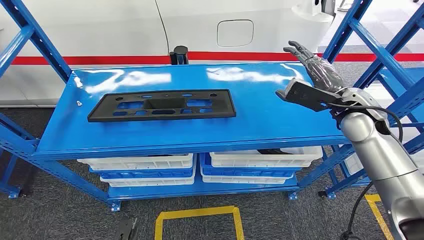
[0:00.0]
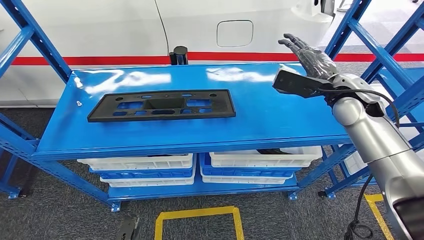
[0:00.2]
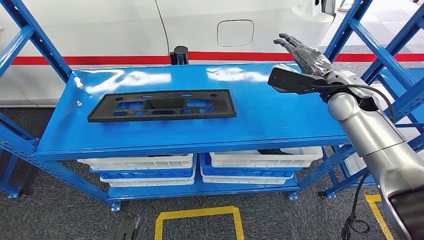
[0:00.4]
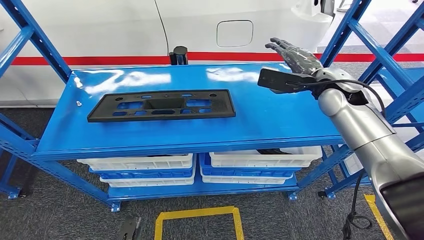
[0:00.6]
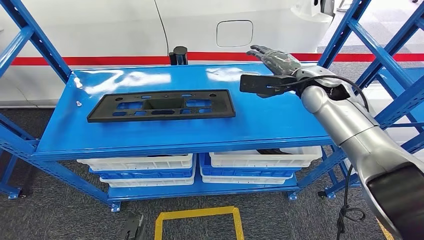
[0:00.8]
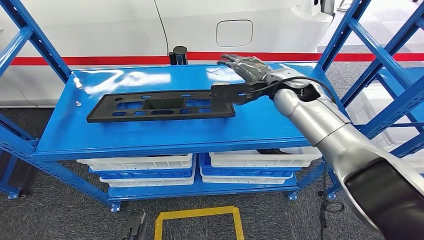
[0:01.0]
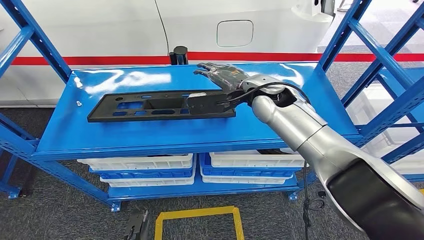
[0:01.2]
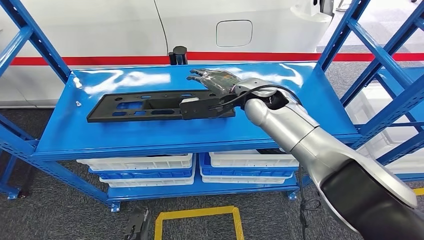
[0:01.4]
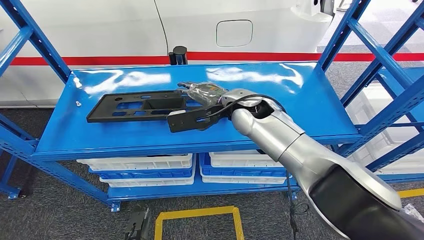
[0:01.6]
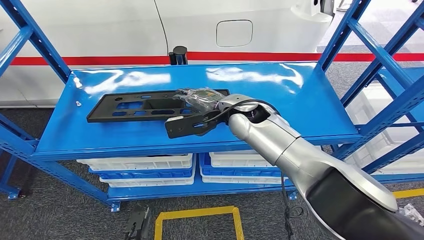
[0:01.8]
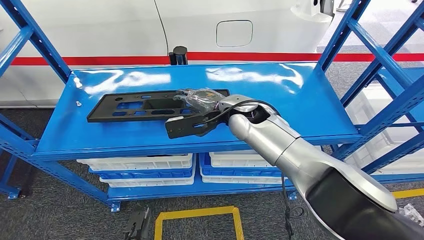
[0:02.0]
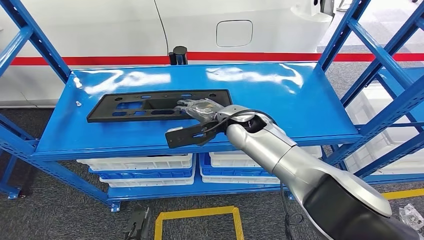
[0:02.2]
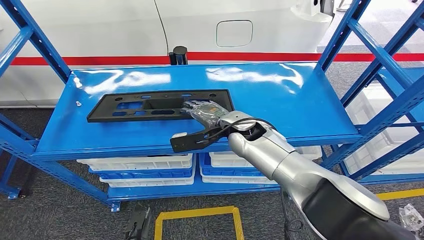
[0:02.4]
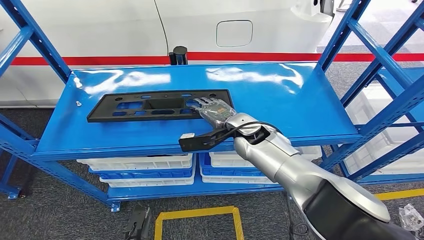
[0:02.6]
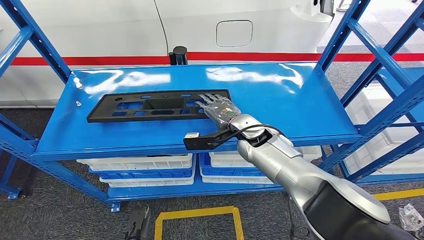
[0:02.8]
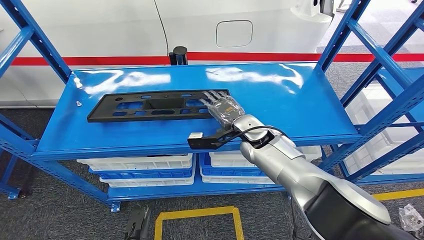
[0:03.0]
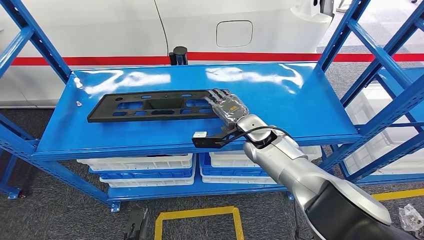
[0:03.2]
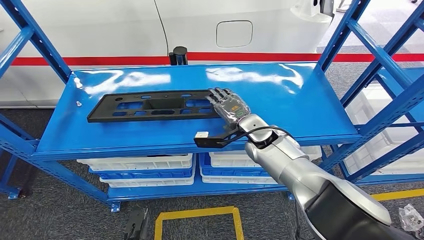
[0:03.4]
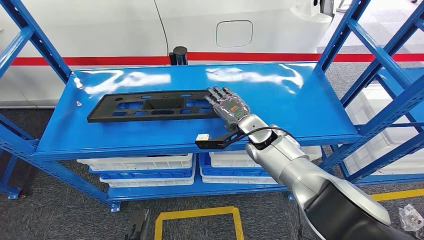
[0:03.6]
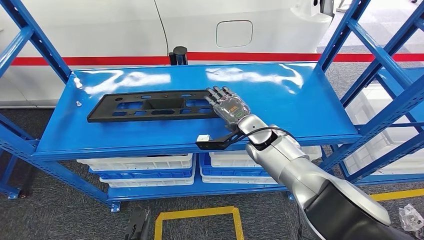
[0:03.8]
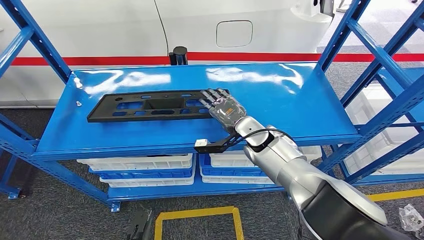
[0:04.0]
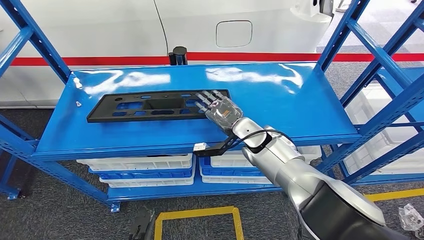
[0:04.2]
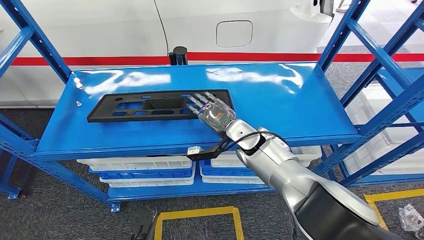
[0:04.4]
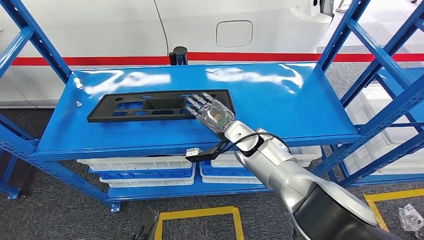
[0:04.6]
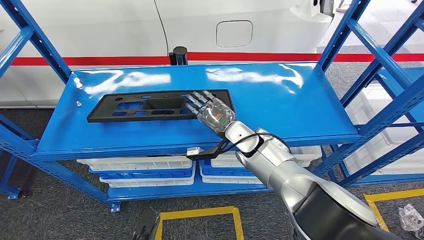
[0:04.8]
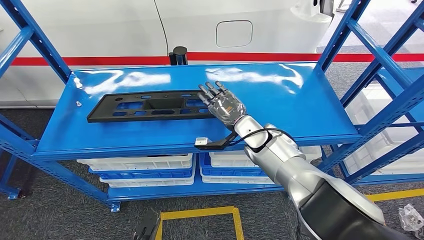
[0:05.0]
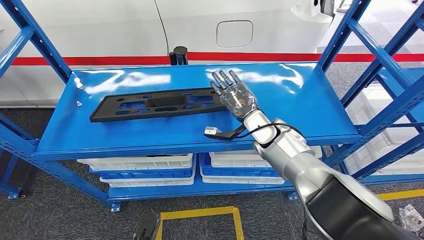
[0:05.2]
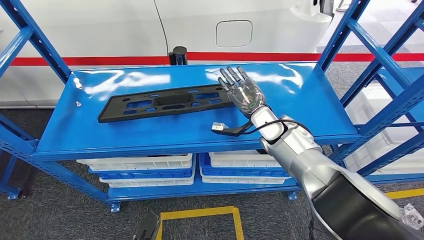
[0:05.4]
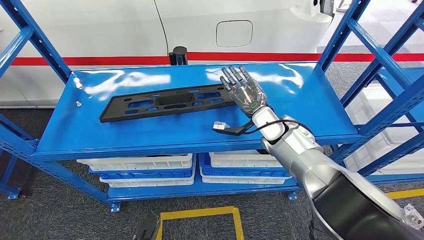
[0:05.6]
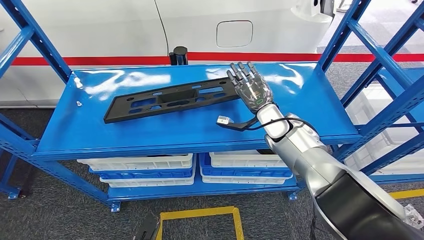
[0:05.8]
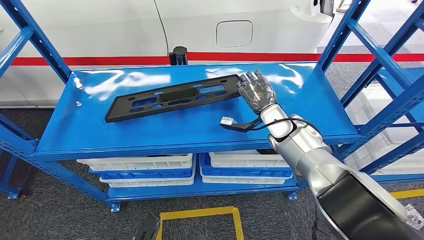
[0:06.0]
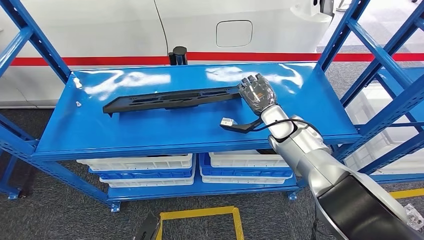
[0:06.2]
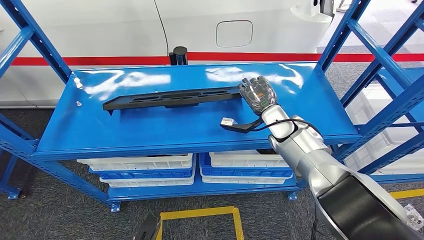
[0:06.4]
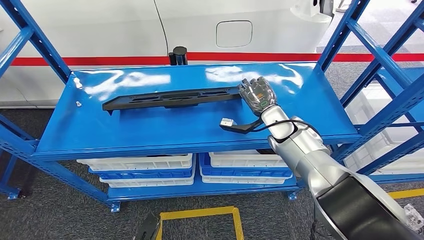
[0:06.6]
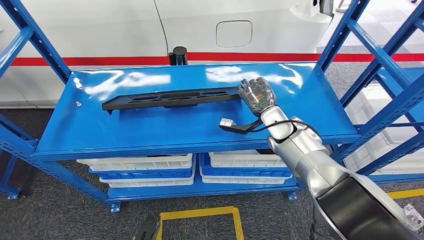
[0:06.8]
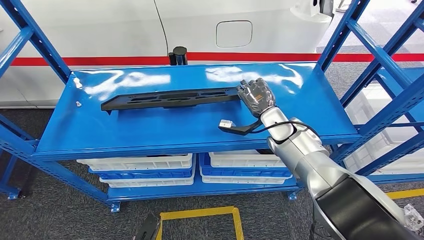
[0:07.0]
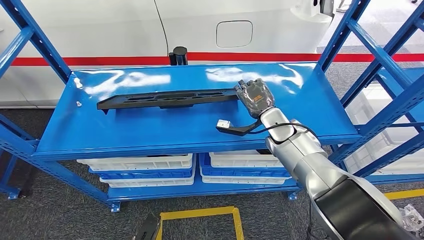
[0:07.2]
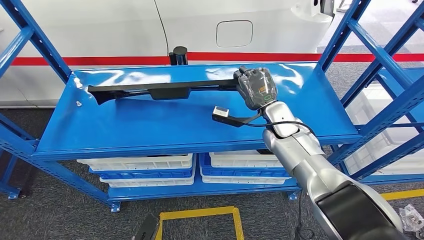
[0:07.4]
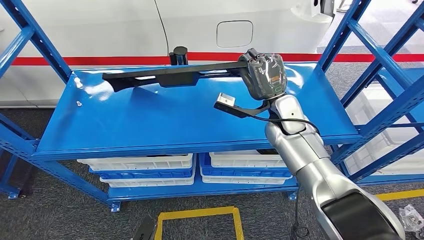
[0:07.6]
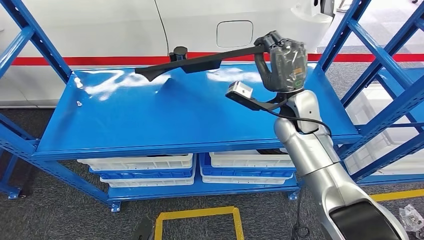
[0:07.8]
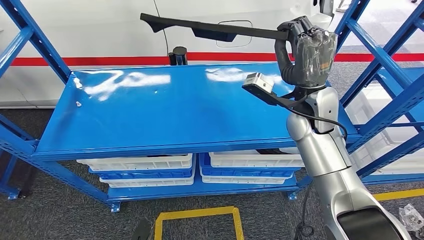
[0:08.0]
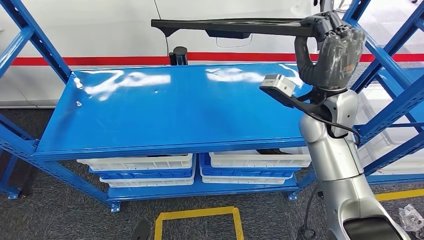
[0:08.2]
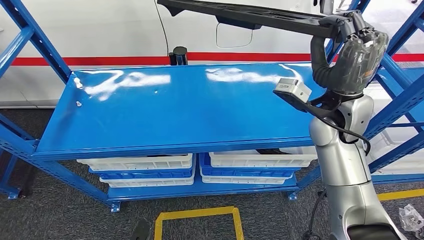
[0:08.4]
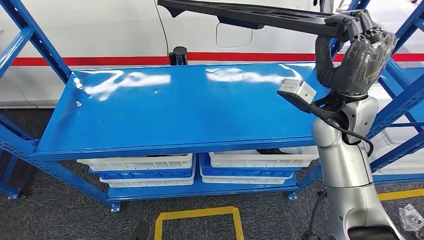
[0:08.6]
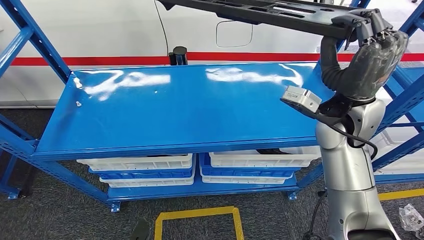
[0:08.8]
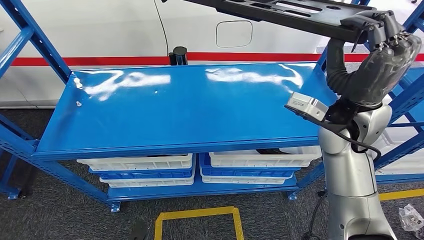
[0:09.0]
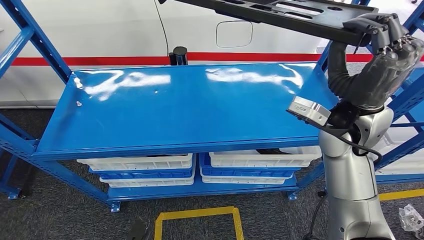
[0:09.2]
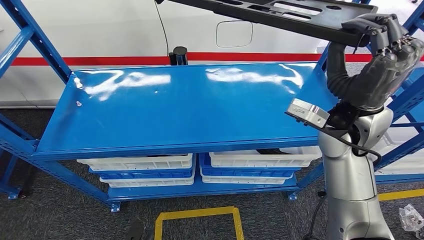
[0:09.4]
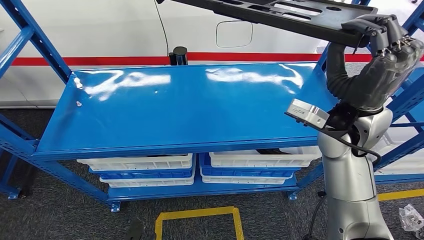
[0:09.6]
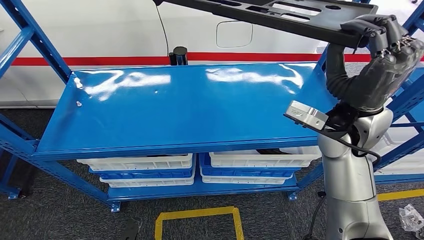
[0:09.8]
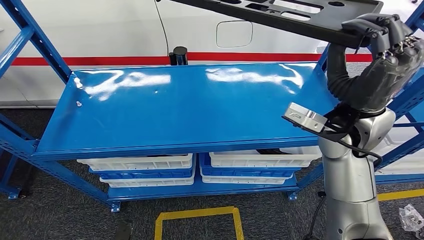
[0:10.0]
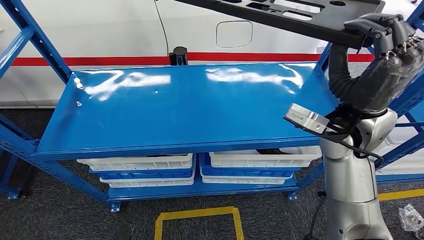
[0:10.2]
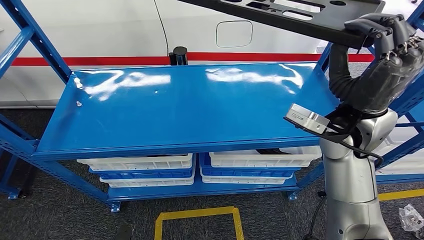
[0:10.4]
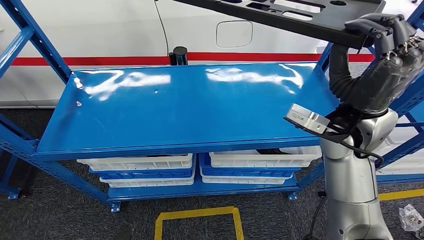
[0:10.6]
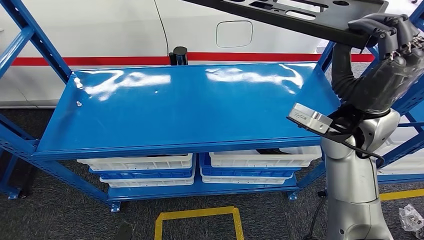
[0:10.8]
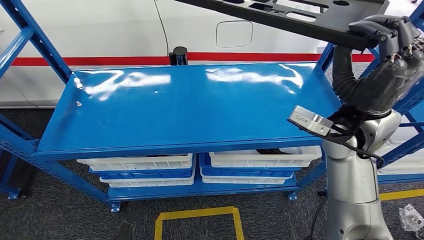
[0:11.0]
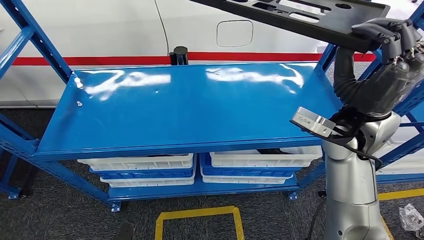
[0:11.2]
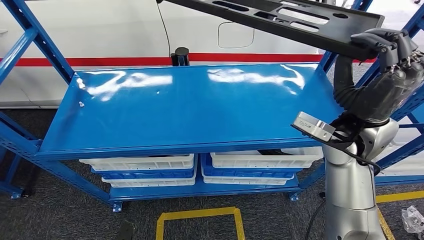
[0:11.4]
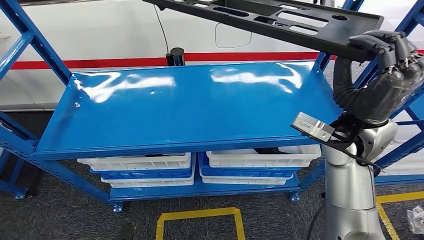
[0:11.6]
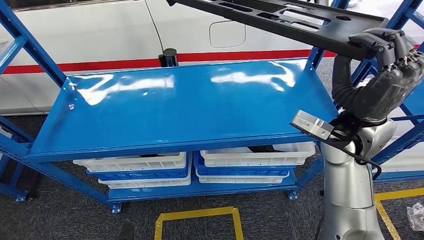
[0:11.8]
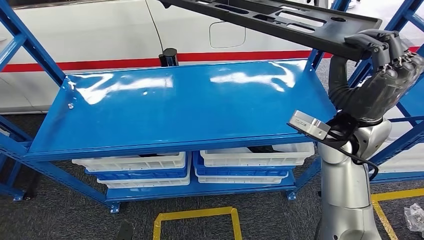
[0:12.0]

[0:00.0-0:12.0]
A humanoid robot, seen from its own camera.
0:01.6 to 0:03.0: The right hand shifts about 10 cm downward.
0:04.4 to 0:06.0: The right hand goes roughly 10 cm to the right.
0:06.0 to 0:07.6: The right hand shifts by some 5 cm.
0:09.0 to 0:10.4: There are only small adjustments of the hands.

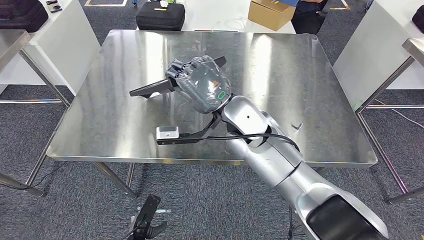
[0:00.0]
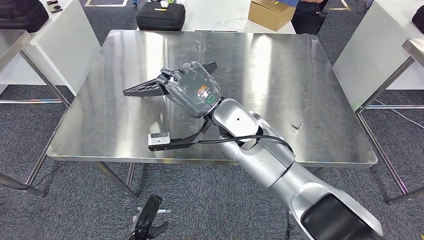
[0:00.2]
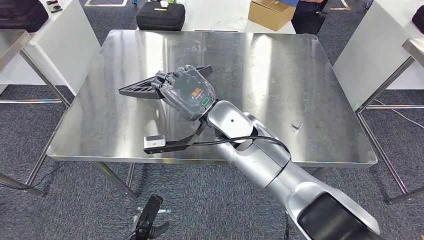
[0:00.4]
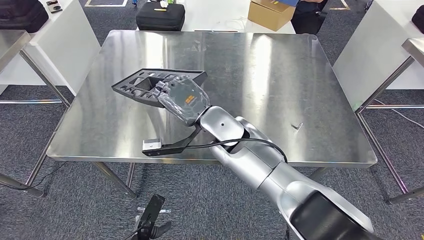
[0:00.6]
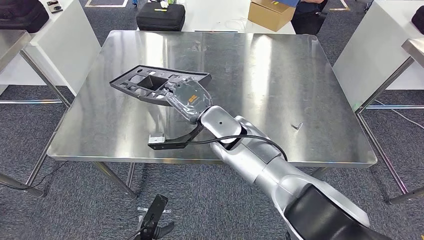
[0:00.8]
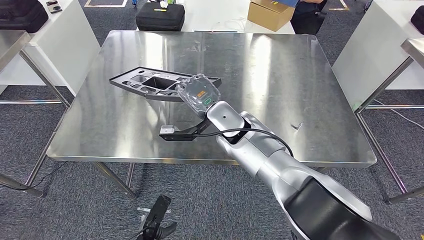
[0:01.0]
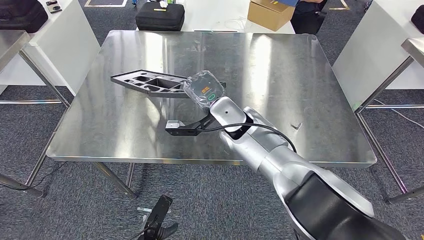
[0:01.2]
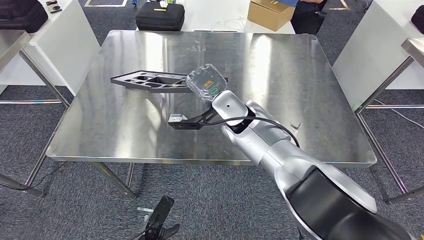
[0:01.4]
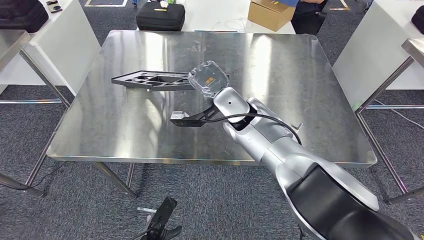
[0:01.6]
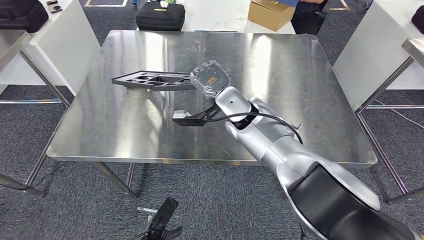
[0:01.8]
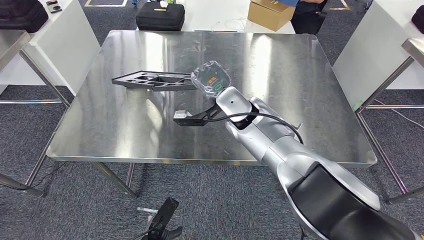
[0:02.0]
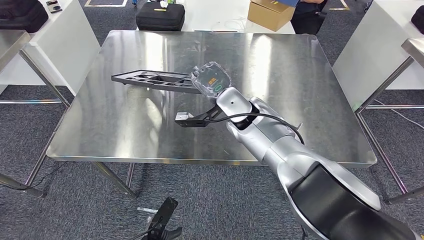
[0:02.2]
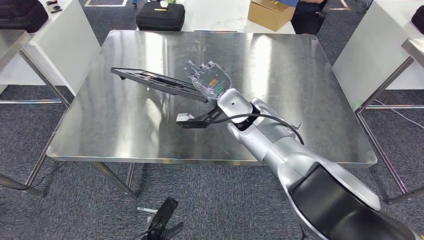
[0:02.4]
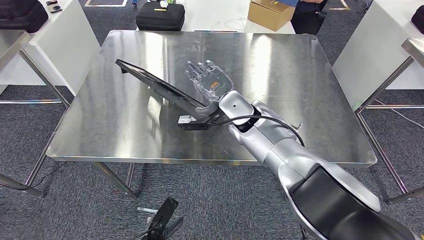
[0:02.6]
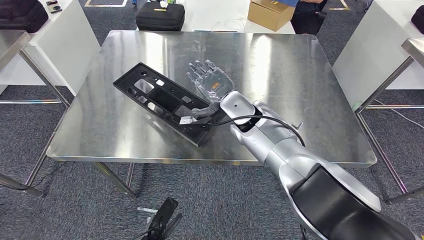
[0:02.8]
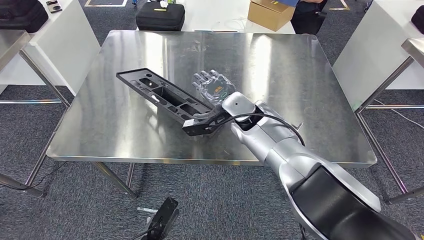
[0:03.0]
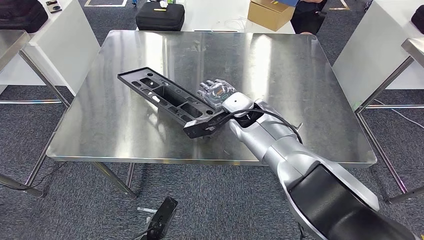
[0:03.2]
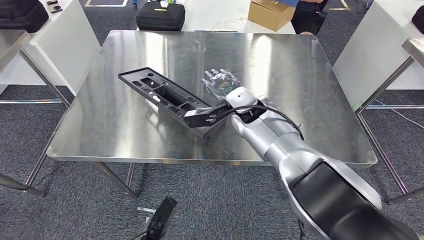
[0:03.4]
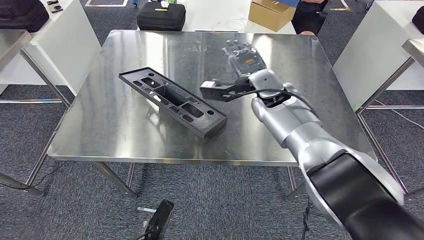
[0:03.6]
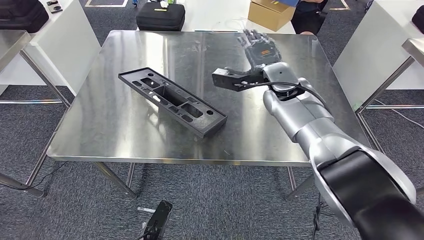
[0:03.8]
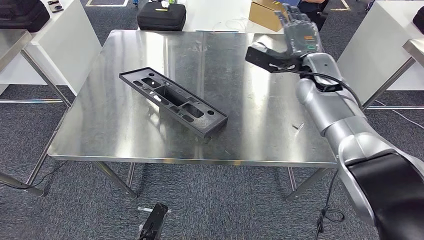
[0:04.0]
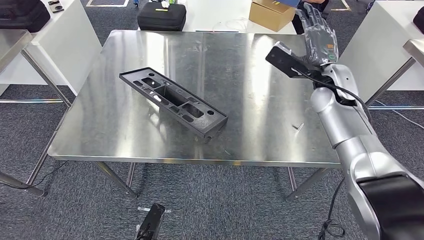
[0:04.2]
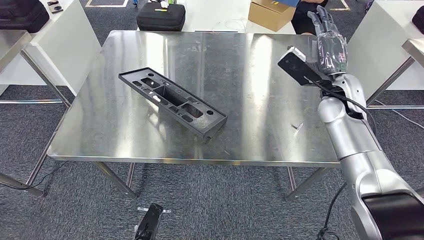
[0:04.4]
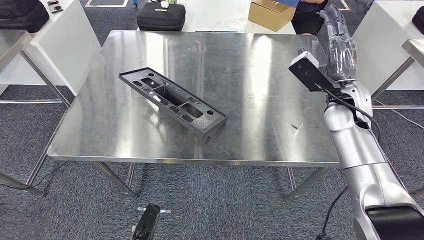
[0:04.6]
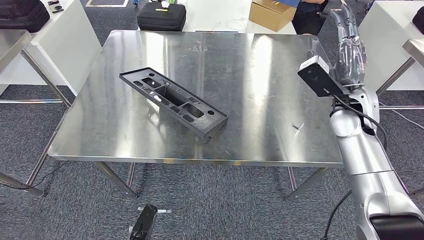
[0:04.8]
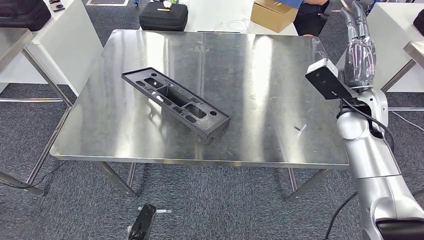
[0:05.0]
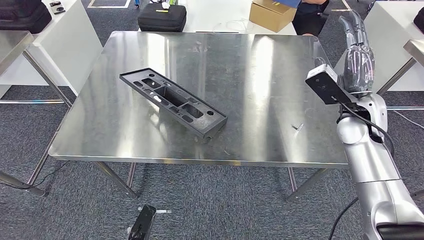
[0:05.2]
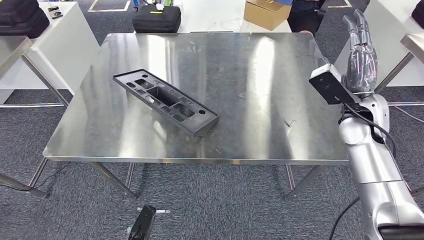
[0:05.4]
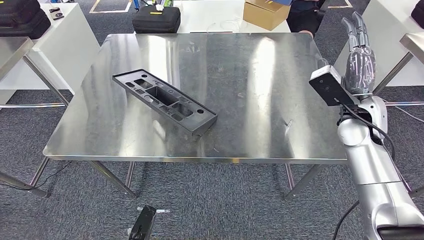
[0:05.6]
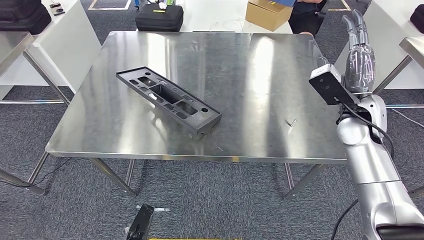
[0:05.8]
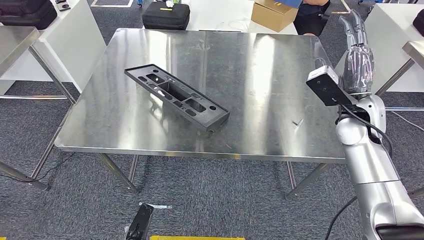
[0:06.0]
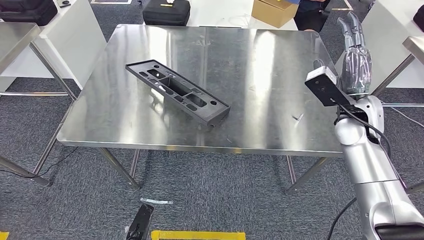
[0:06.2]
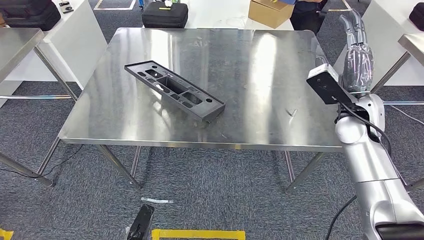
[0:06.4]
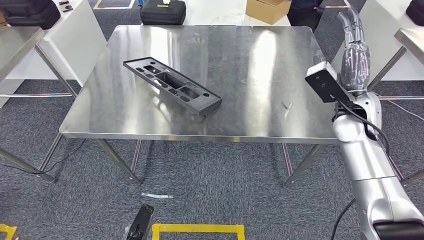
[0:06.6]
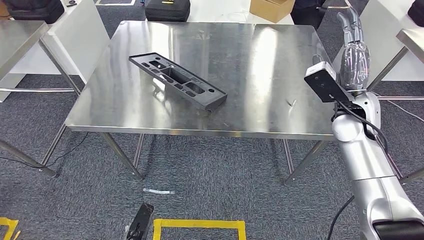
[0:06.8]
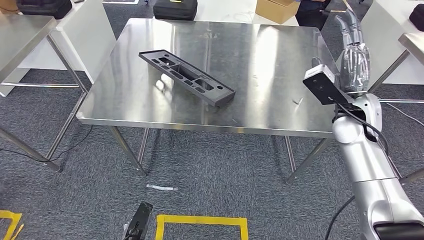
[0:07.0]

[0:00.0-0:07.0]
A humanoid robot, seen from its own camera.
0:00.0 to 0:01.4: The right hand goes roughly 5 cm forward.
0:01.4 to 0:02.8: The hands move only a little.
